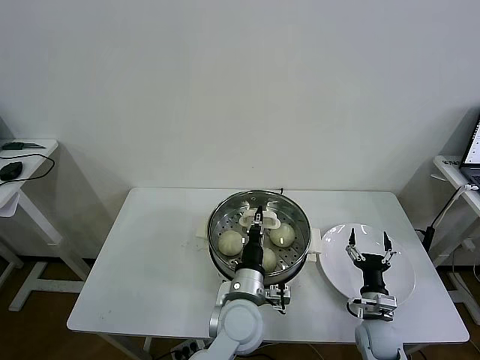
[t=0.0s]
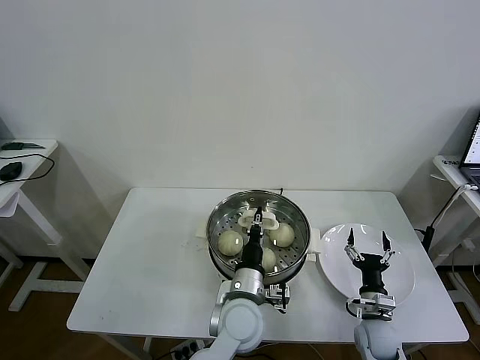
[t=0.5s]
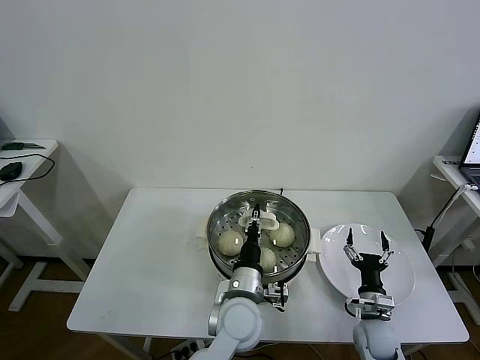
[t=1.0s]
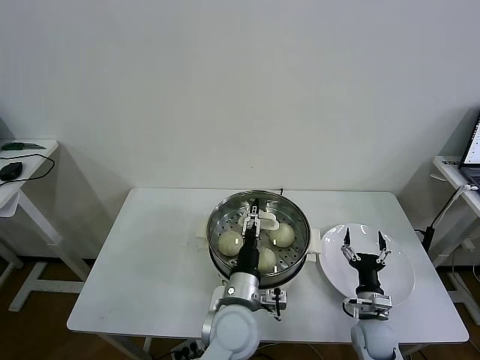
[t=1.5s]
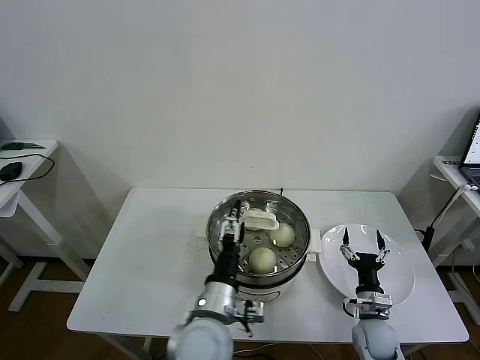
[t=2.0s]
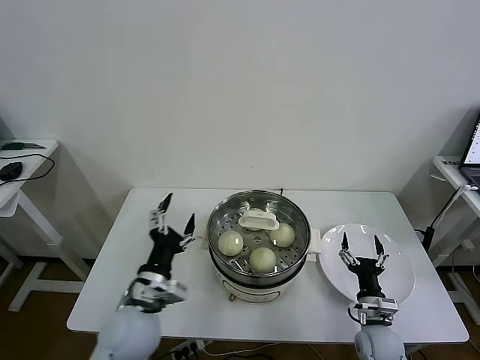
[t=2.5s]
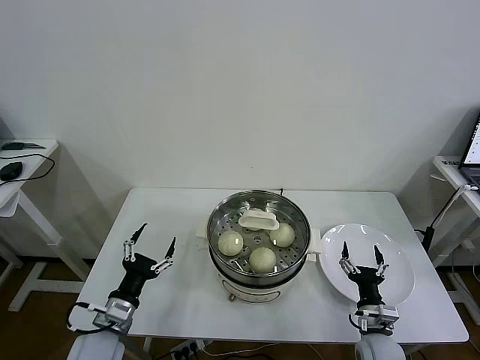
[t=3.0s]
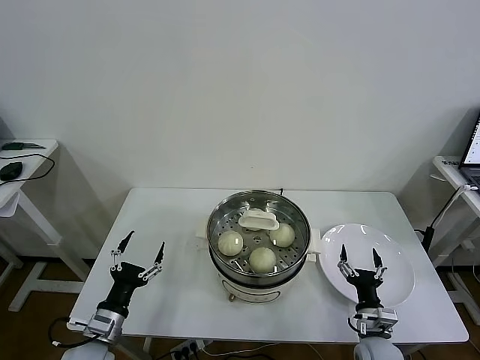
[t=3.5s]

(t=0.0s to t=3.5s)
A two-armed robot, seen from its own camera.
Task of the whole recording: take steamed baozi put them in steamer then cover it.
t=0.0s - t=2.0s: The left gripper moves to the left, about 5 cm, and opens up.
t=2.0s - t=3.5s: The left gripper shifts some 25 cm to the left.

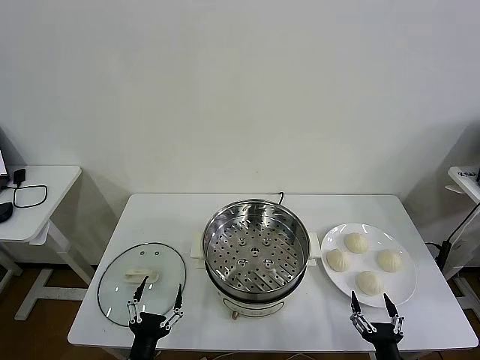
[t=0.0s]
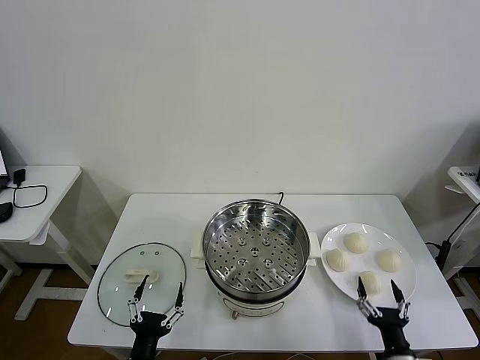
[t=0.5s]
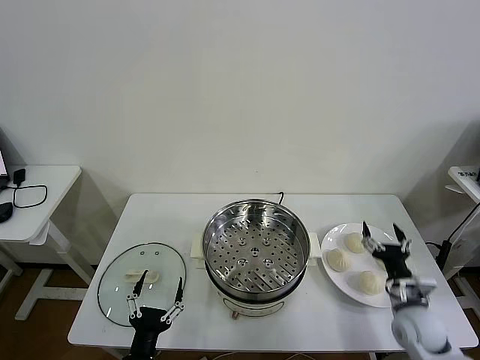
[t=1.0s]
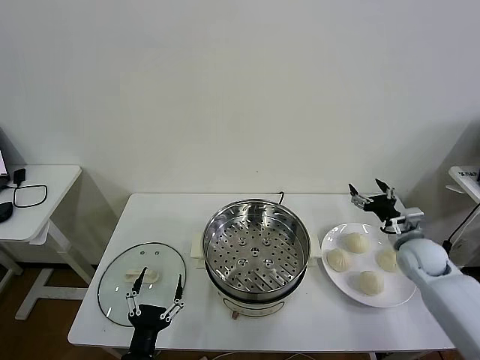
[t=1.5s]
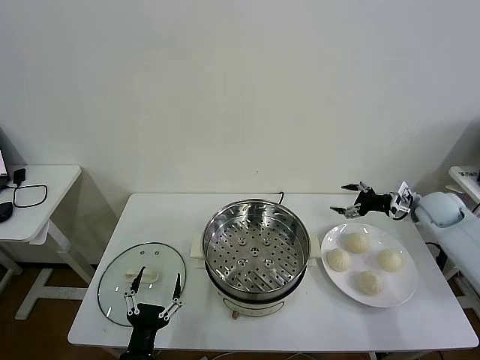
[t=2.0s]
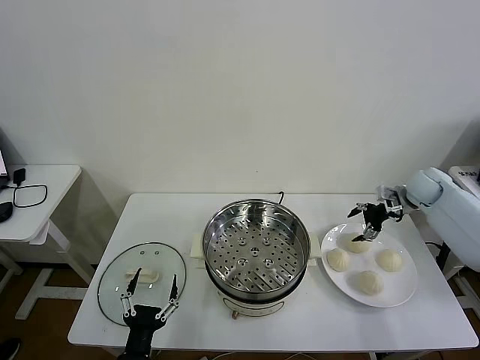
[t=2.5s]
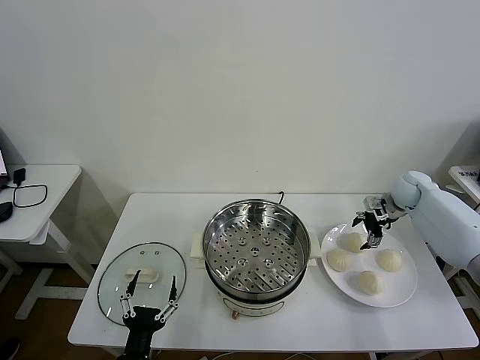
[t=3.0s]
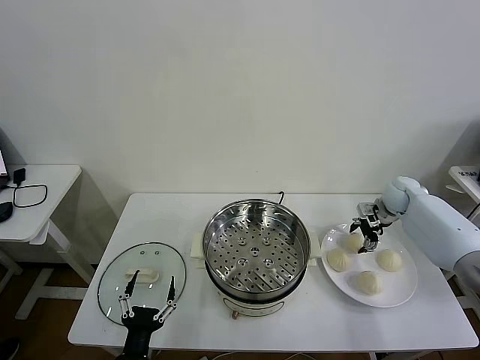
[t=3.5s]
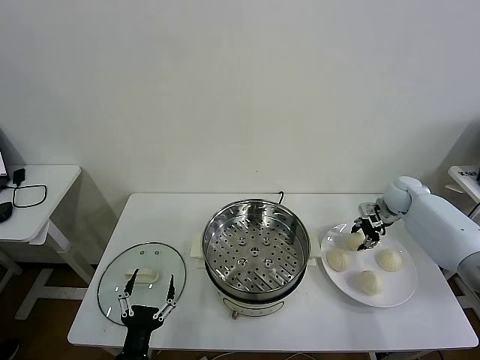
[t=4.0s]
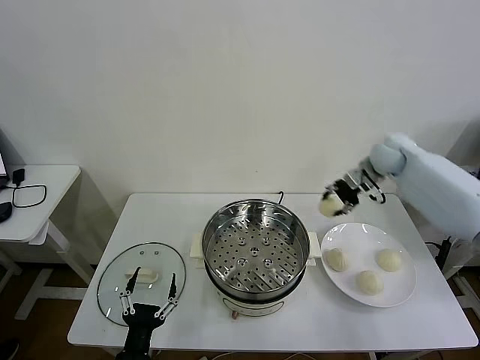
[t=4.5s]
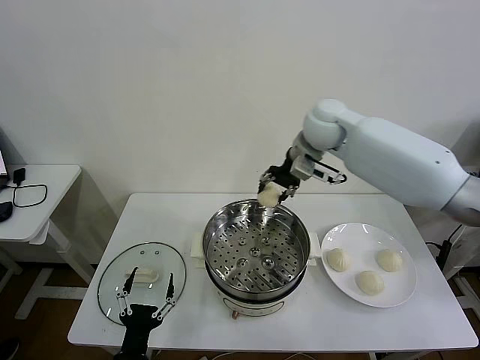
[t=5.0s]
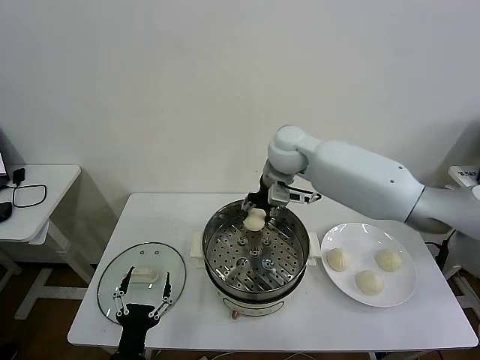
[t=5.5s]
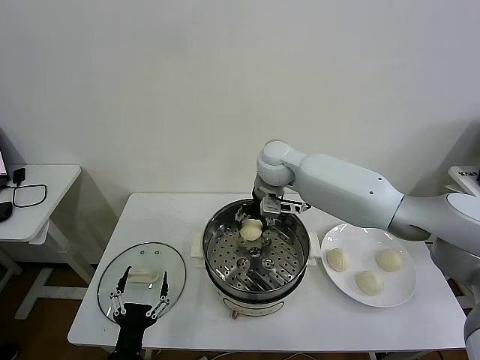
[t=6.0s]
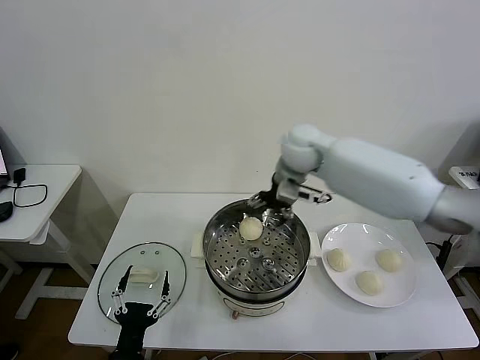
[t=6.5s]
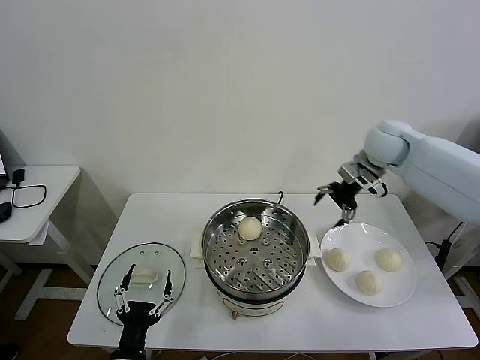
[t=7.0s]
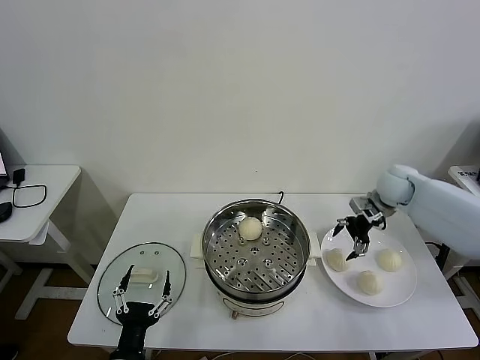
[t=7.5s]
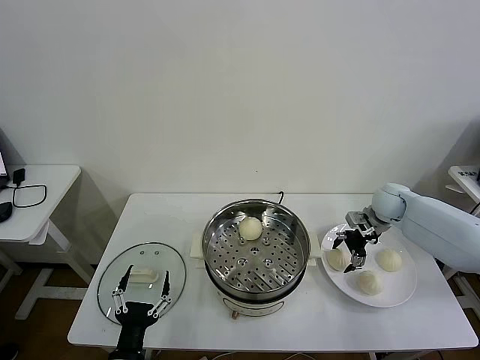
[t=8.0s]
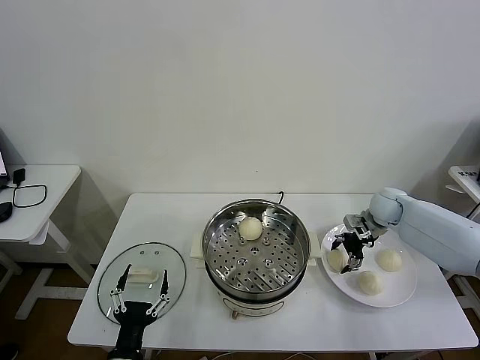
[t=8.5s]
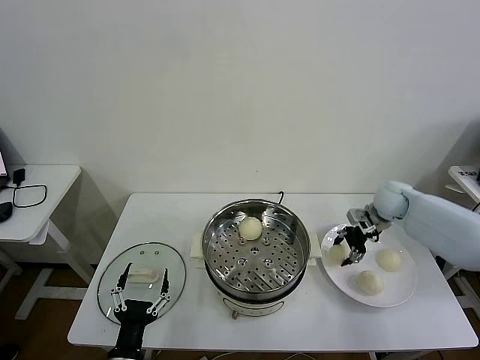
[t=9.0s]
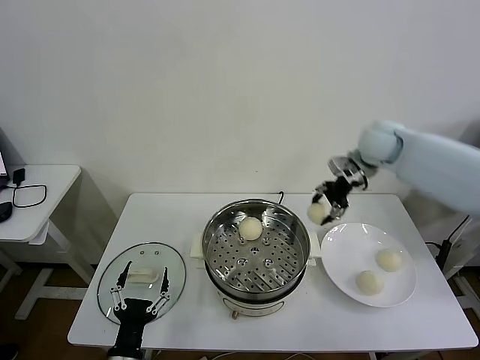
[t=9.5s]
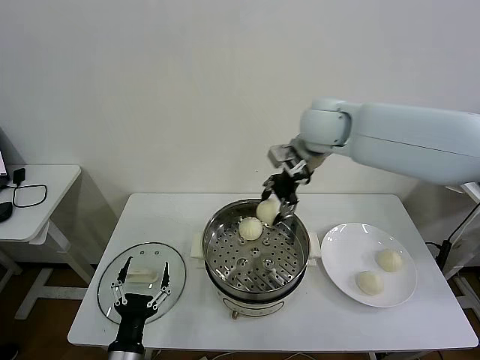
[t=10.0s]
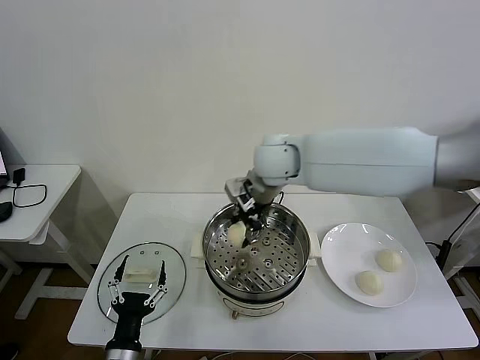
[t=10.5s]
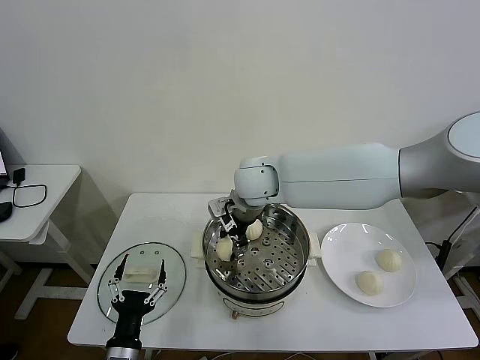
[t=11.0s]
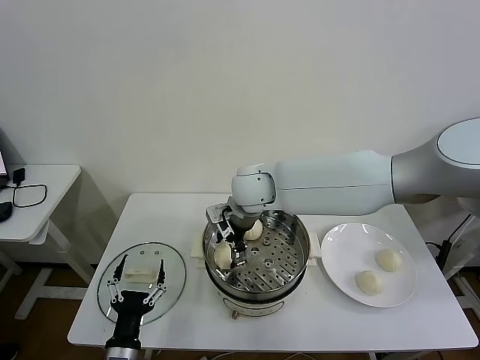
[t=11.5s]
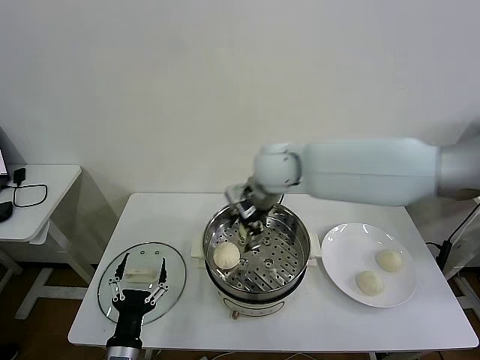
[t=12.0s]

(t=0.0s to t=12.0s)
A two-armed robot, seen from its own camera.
Task of the whole recording: take steamed baozi put them in steamer then cover it.
Step, t=0.0s - t=3.5s: Grasp the baozi in the plate with right gripper.
Step, t=4.0s - t=6.5s: Place the baozi on the steamer with right gripper.
Step, t=7.0s - t=8.5s: Grasp the baozi in the plate with right gripper.
Step, t=9.0s - t=11.5s: Place the baozi on the steamer with right gripper.
t=2.0s - t=4.0s: The right gripper moves forward and to the left, some 5 cm, and closes.
t=4.0s - t=6.0s: The right gripper is displaced to the left by some 35 cm, and opens its fingers.
t=6.0s - t=8.0s: The right gripper goes some 35 cm to the right and downward.
t=8.0s - t=10.0s: The right gripper goes roughly 35 cm to the left and upward, and closes its fingers.
t=10.0s - t=12.0s: The right gripper travels to the left and back again, some 10 cm each way, and opens up.

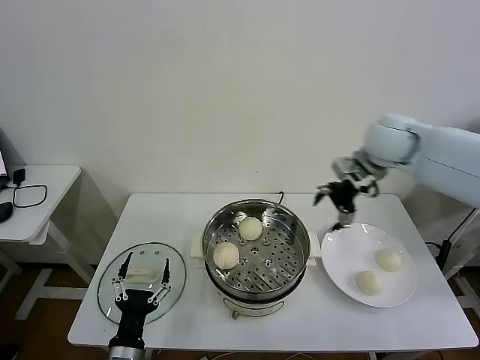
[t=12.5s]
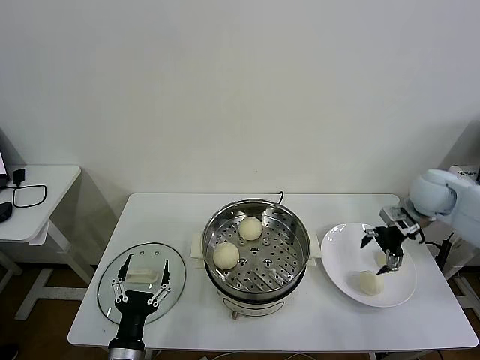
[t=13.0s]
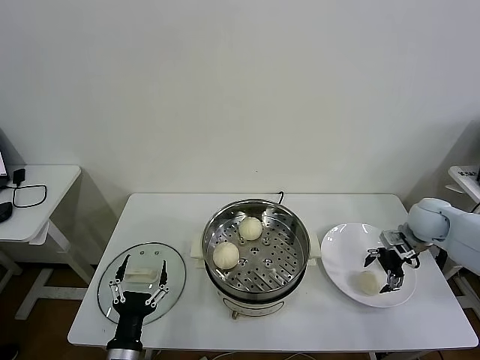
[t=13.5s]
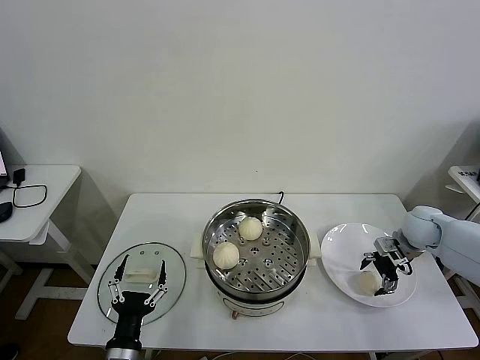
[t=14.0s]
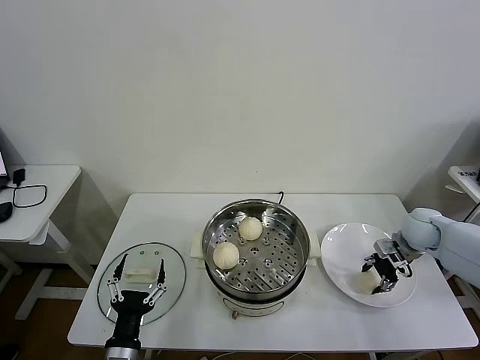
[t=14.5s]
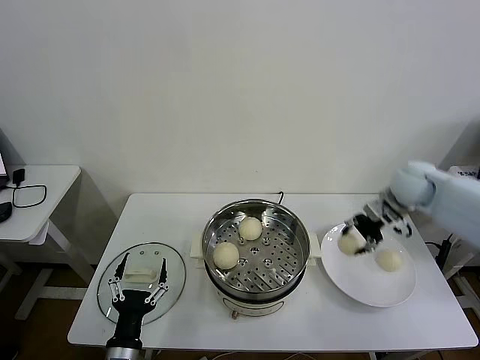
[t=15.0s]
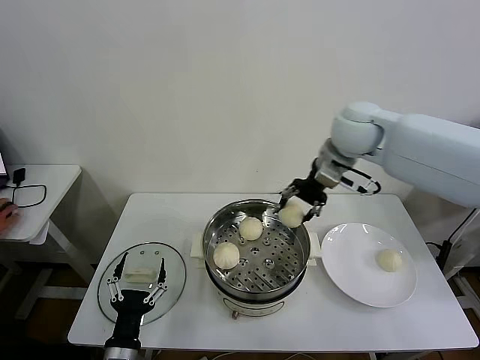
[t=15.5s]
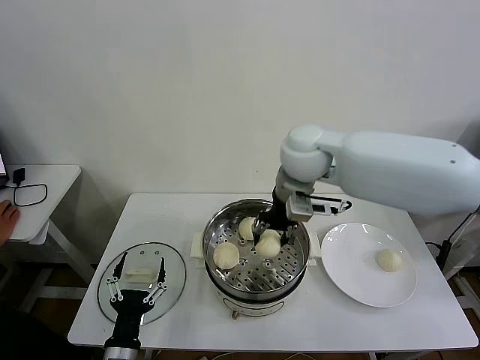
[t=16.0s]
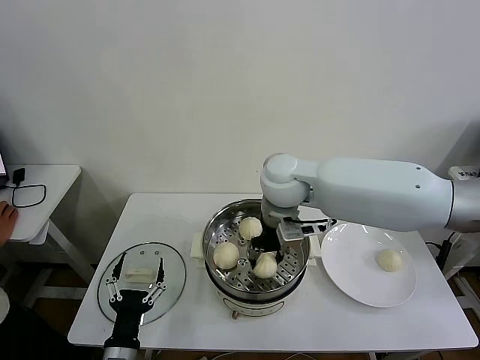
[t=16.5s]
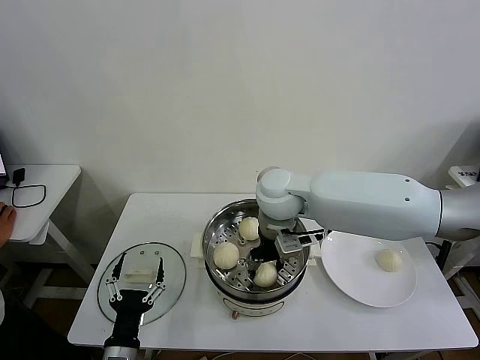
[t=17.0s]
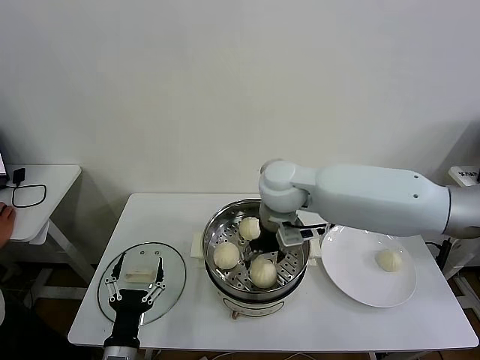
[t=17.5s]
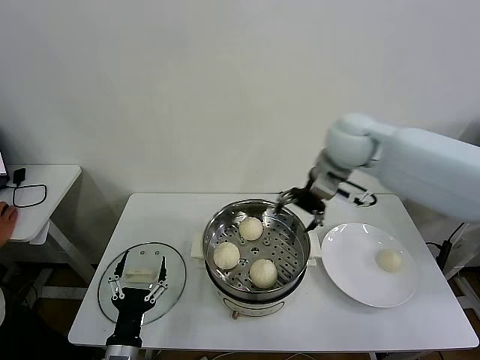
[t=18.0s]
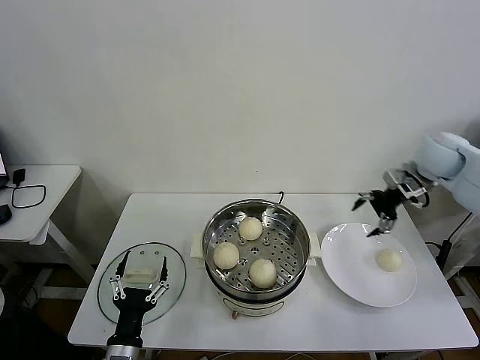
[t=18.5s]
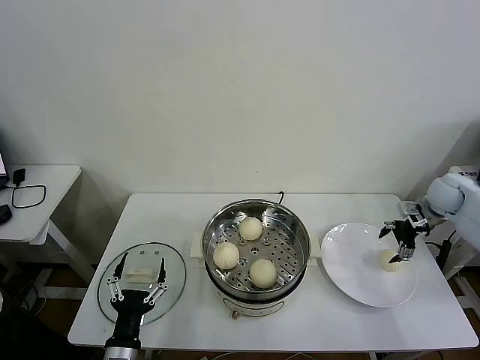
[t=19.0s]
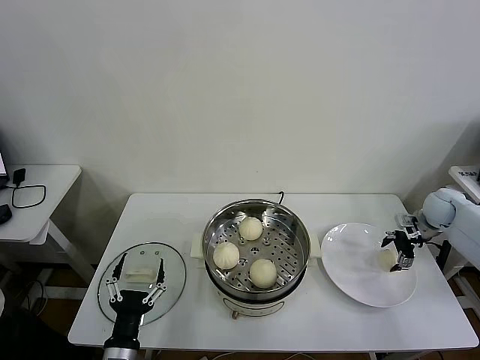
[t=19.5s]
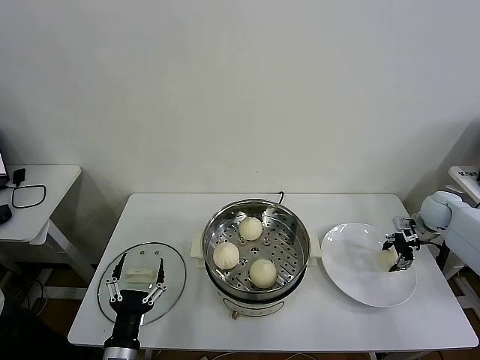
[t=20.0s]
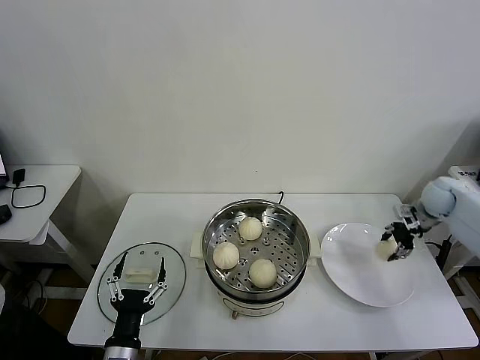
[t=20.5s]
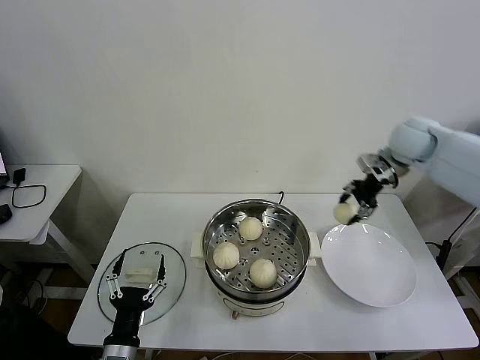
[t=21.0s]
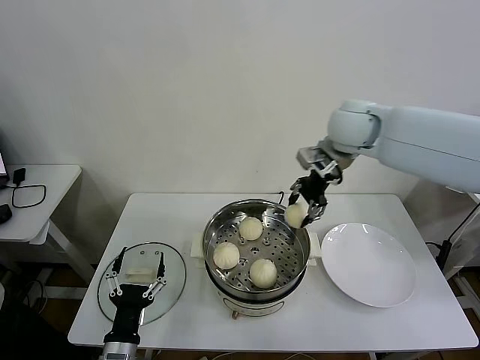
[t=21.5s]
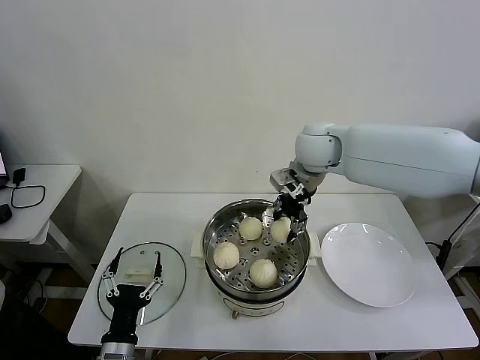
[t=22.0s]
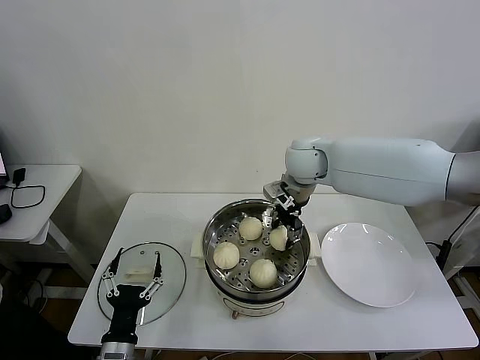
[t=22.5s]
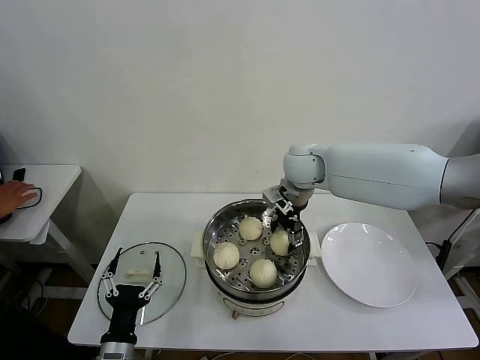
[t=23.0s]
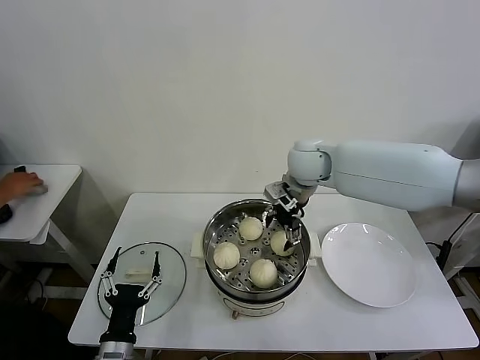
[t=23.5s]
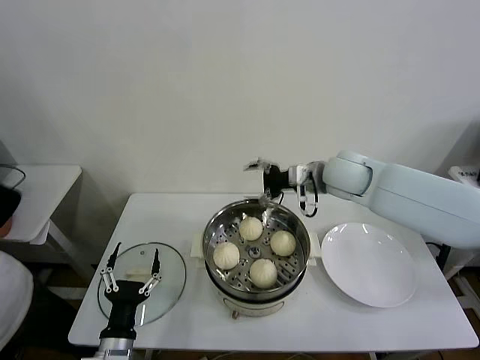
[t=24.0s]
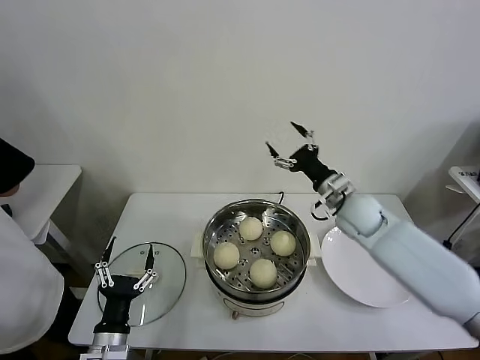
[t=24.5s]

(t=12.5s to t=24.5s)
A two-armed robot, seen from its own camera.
Task of the whole recording: take steamed baozi put them in steamer then cover it.
Step, t=12.5s - t=14.5s: Grasp the baozi in the plate with right gripper.
Step, t=15.0s - t=17.5s: Place the baozi on the steamer with right gripper.
Step, t=18.0s - t=20.0s: Grasp the baozi in the plate with right gripper.
Step, t=20.5s - t=23.5s: Place the baozi on the steamer with right gripper.
t=12.5s - t=14.5s: The right gripper shifts some 20 cm downward and to the right, and closes up.
t=14.5s - t=16.5s: The right gripper is displaced to the left and upward by some 40 cm.
t=16.5s - t=18.5s: The right gripper shifts about 35 cm to the right, and opens.
t=18.5s - t=20.5s: The right gripper shifts roughly 15 cm downward and to the right, and closes.
t=20.5s - t=22.5s: The right gripper heads to the left, covering some 35 cm.
t=22.5s - t=24.5s: The right gripper is displaced to the right, downward and backward by about 20 cm, and opens its fingers.
